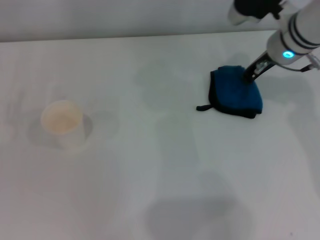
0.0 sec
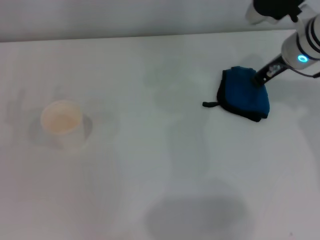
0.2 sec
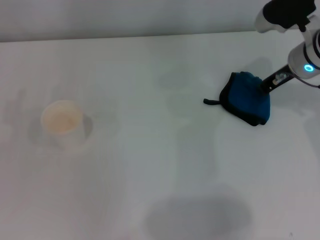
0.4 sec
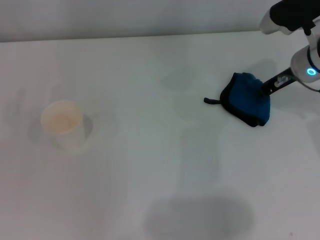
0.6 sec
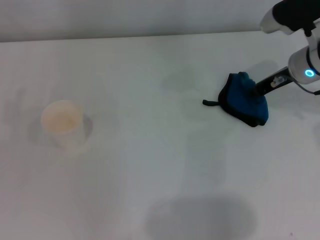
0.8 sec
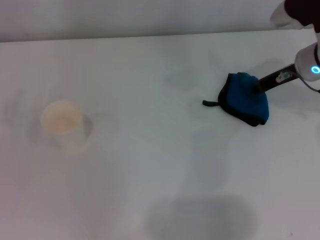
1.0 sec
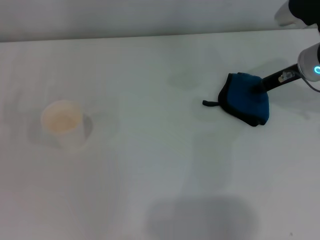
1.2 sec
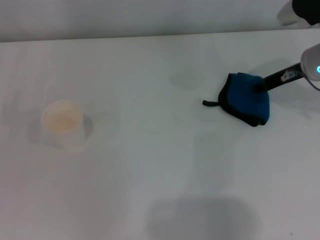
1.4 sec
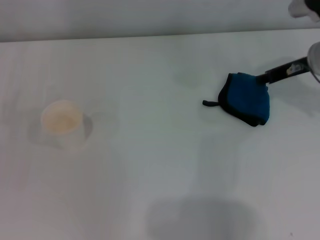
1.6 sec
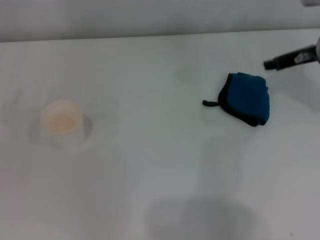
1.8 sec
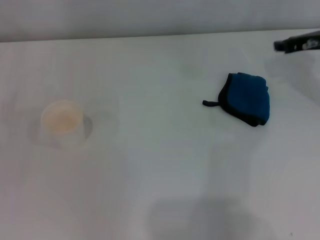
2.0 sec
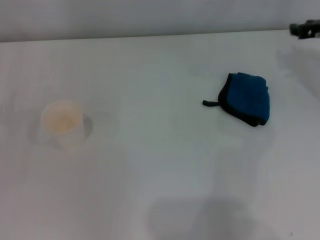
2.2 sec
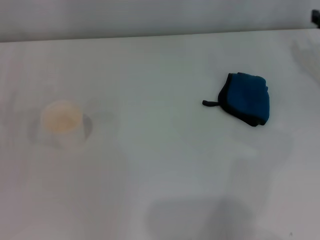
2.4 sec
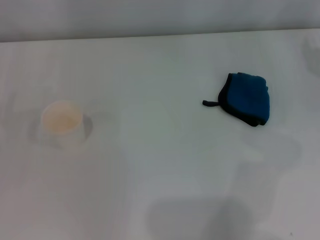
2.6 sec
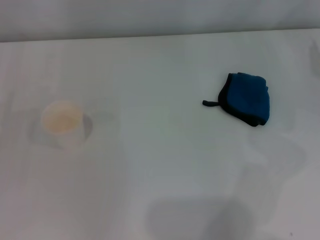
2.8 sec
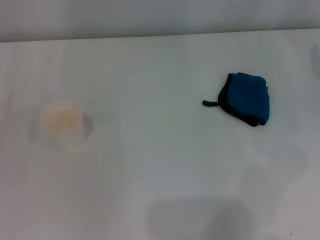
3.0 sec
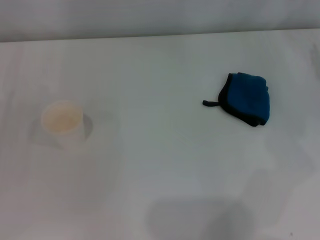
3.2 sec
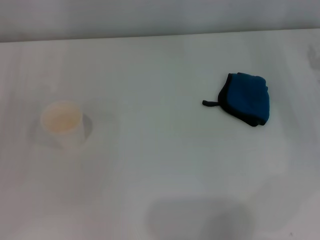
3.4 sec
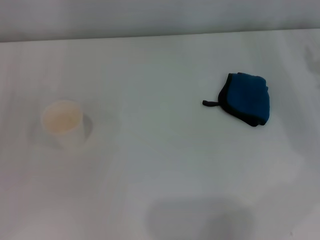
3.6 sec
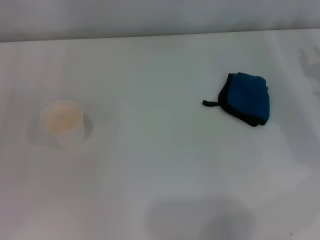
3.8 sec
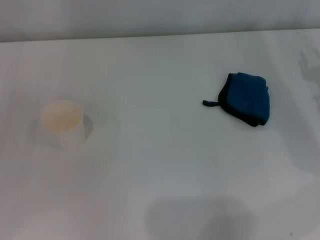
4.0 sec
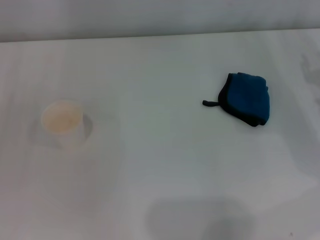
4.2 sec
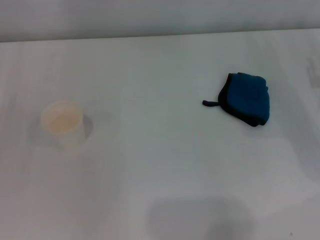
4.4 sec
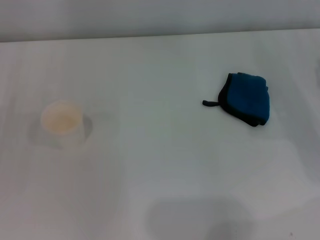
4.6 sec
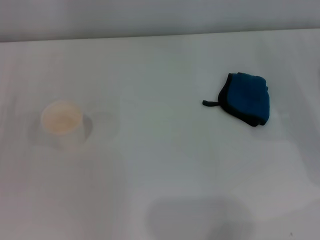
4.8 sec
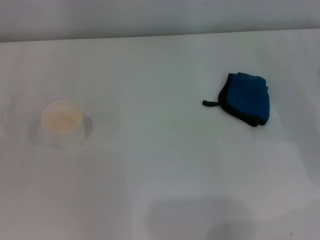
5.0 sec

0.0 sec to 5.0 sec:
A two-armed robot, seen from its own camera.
Step, 0.6 sec to 1.2 sec: Place the rag on the table with the right gripper.
0.0 sec to 1.6 sec: The right gripper travels to the right by about 5 cm, and opens.
1.6 sec to 3.4 sec: The right gripper shifts about 10 cm to the right.
